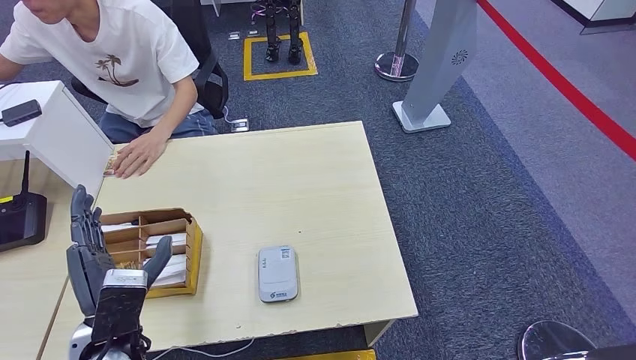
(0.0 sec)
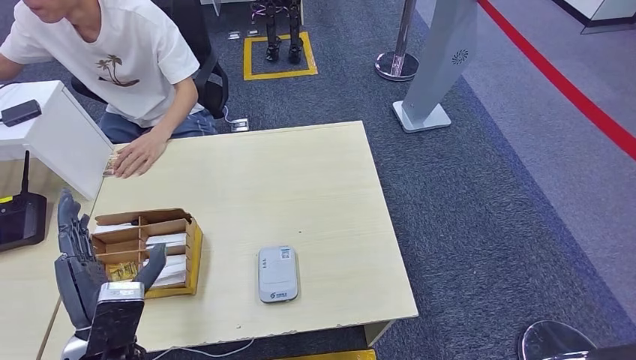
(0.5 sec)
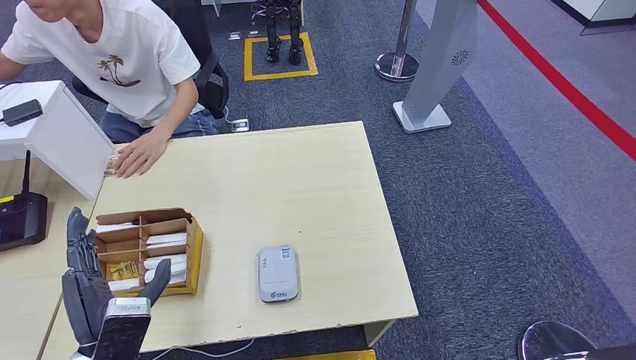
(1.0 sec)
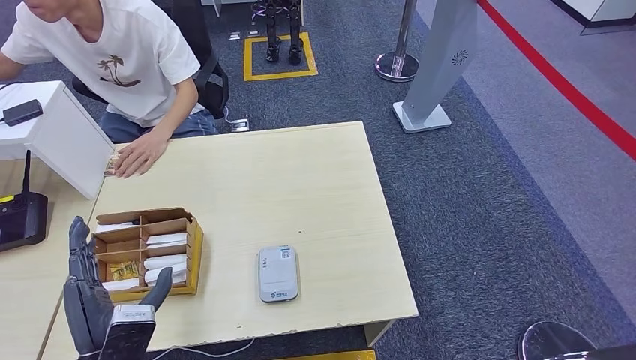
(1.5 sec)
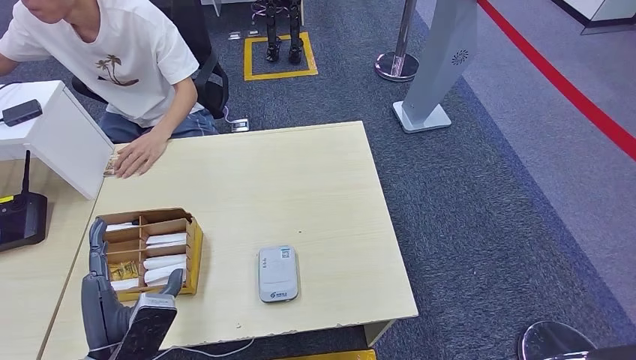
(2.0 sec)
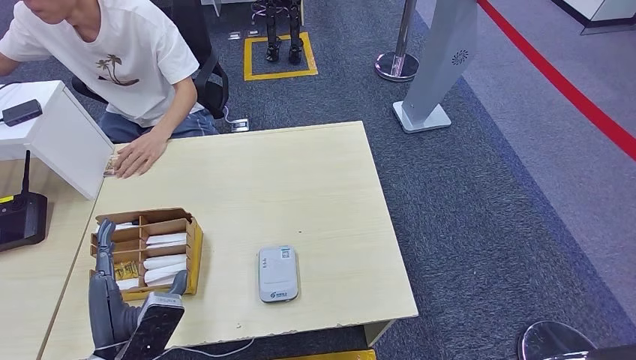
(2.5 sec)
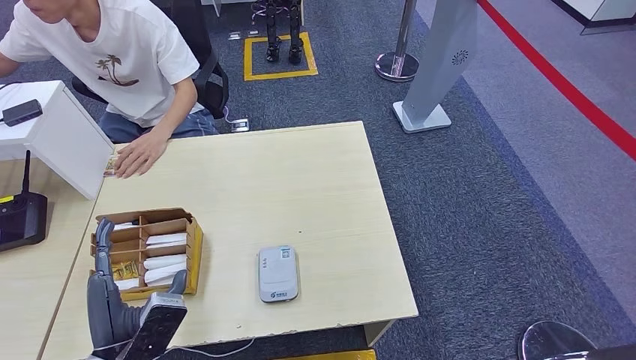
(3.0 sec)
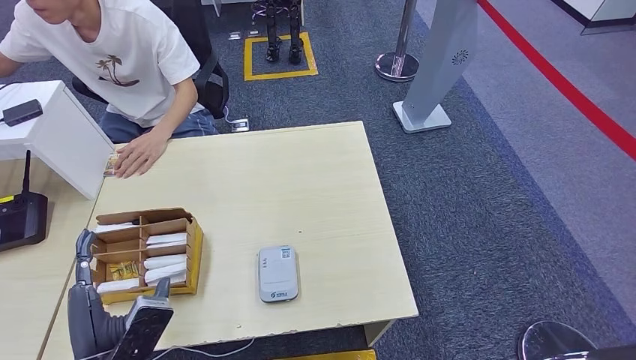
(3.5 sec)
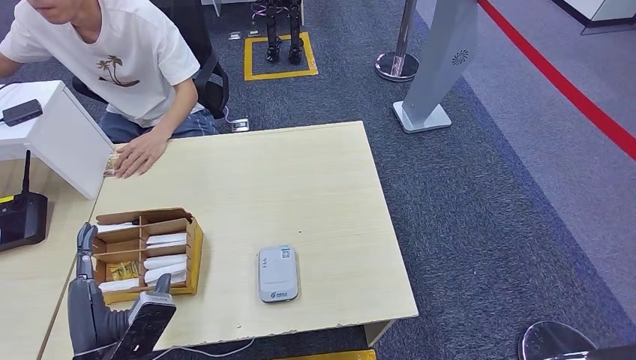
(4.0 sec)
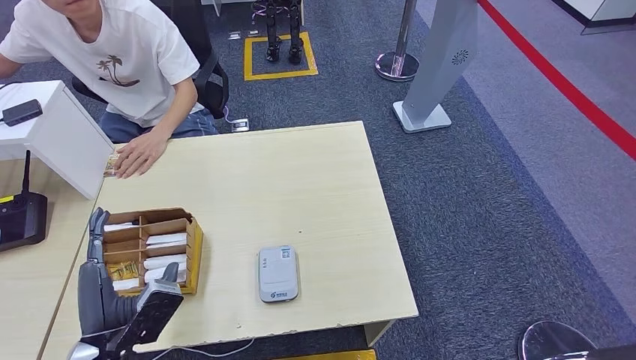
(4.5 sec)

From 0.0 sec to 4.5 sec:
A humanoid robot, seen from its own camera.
Step, from 0.0 sec to 4.5 sec: Hand the room key to the person.
From 0.0 sec to 2.0 sec: There are only small adjustments of the hands.
From 2.0 sec to 4.5 sec: The hands make only small movements.
